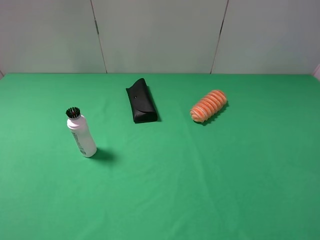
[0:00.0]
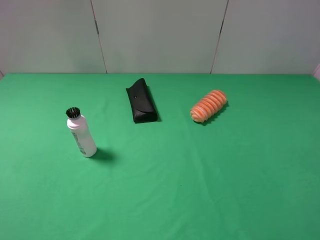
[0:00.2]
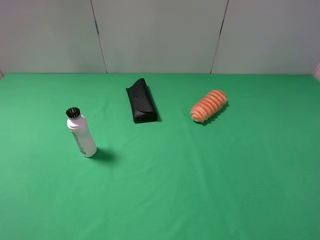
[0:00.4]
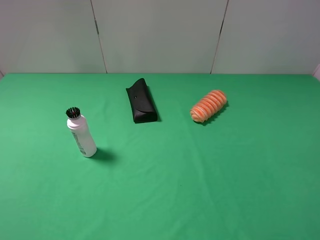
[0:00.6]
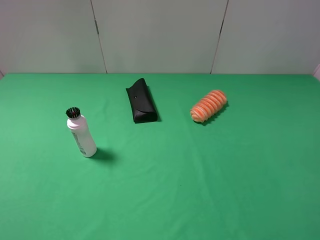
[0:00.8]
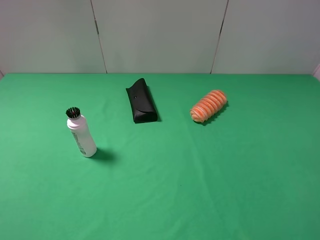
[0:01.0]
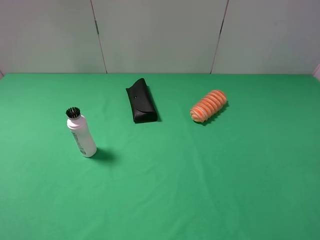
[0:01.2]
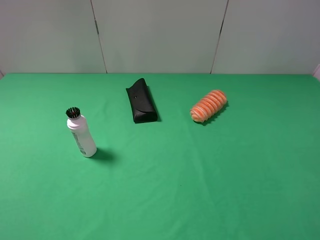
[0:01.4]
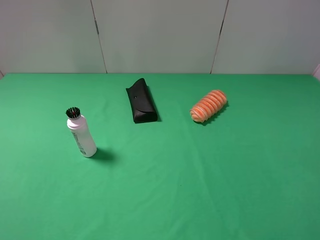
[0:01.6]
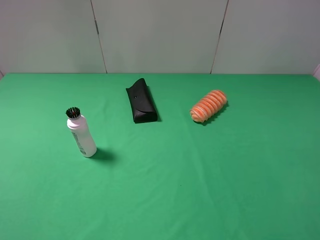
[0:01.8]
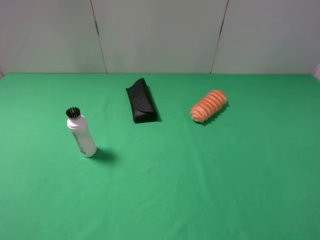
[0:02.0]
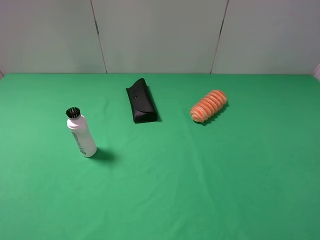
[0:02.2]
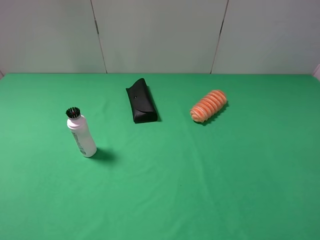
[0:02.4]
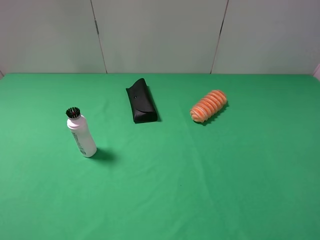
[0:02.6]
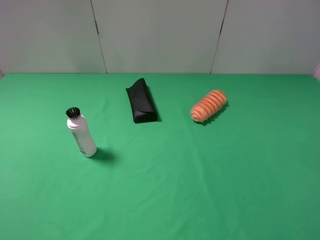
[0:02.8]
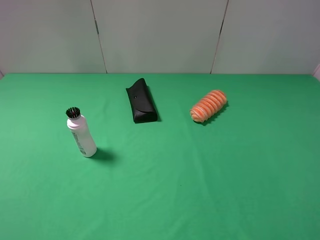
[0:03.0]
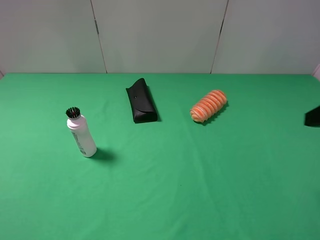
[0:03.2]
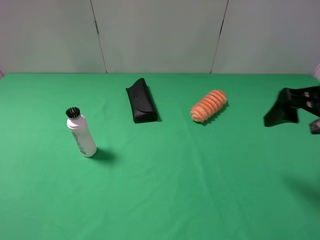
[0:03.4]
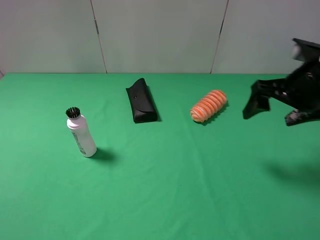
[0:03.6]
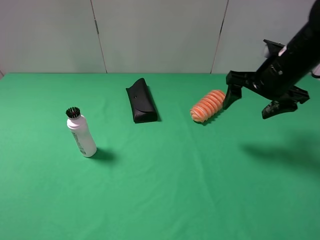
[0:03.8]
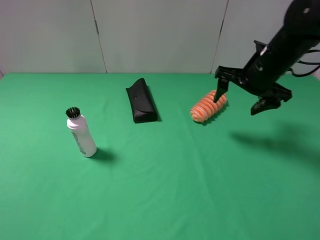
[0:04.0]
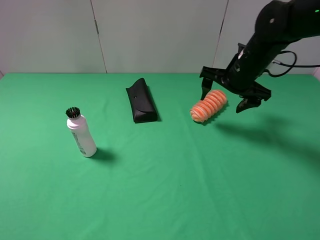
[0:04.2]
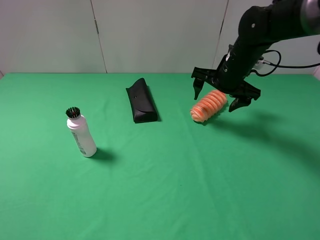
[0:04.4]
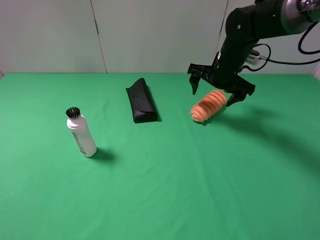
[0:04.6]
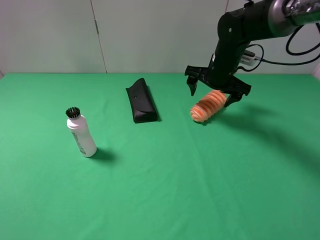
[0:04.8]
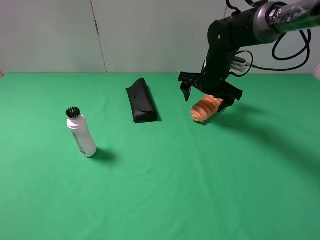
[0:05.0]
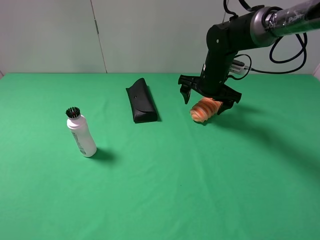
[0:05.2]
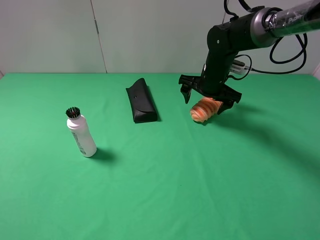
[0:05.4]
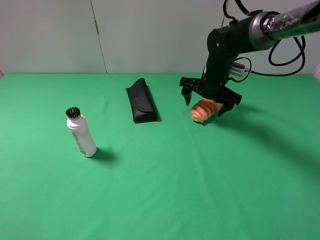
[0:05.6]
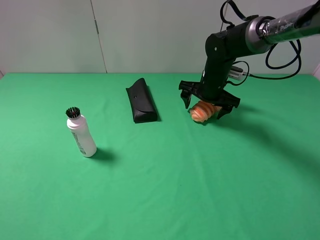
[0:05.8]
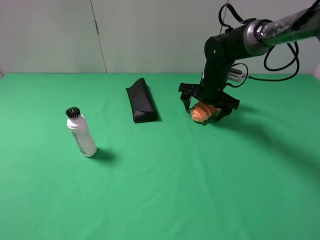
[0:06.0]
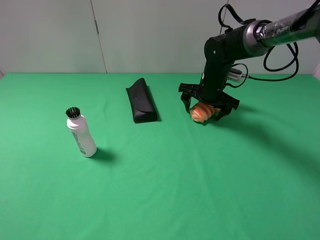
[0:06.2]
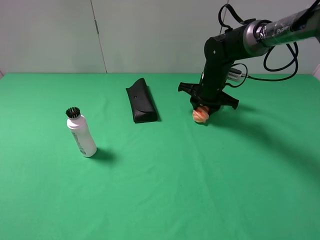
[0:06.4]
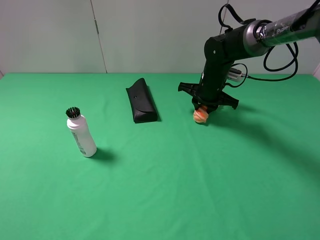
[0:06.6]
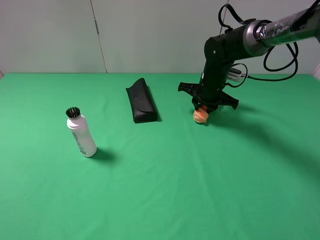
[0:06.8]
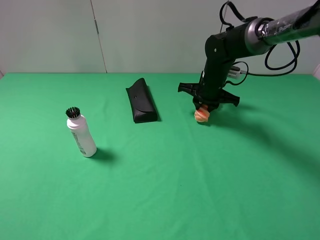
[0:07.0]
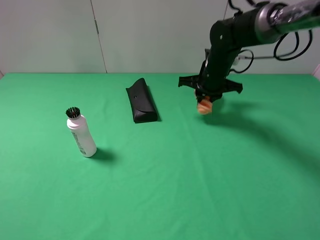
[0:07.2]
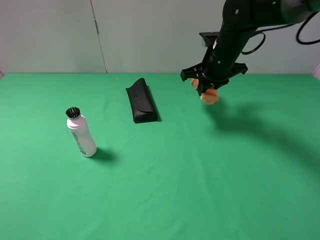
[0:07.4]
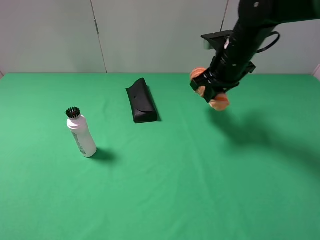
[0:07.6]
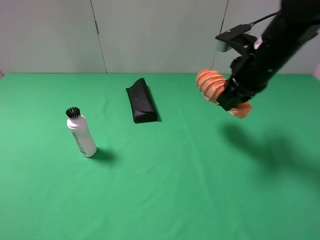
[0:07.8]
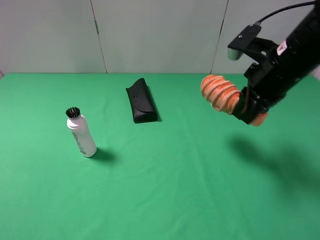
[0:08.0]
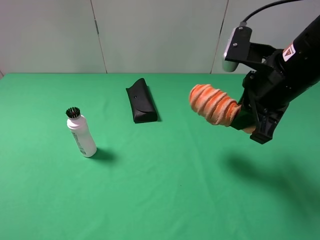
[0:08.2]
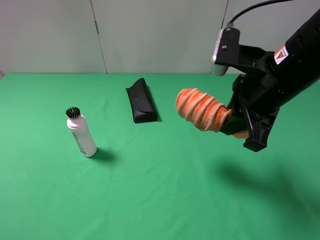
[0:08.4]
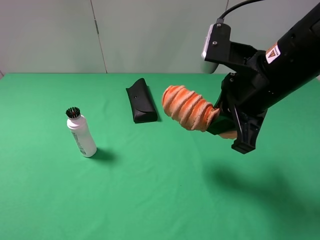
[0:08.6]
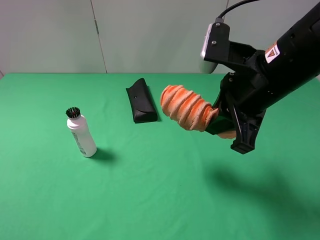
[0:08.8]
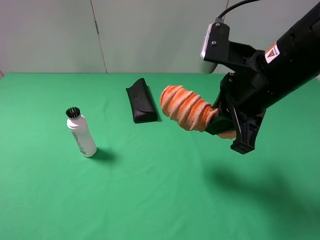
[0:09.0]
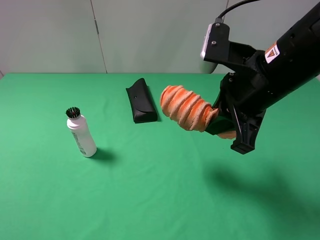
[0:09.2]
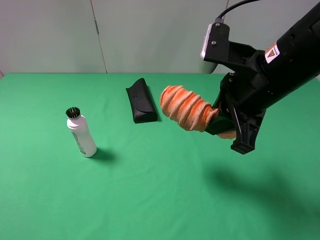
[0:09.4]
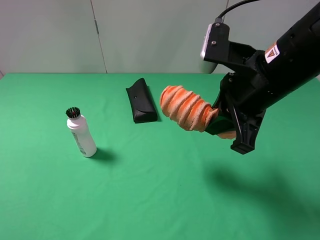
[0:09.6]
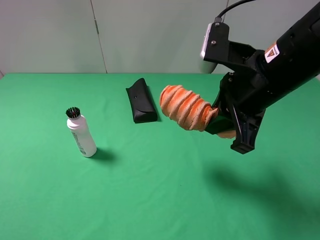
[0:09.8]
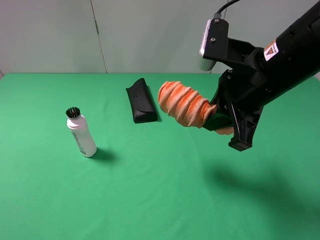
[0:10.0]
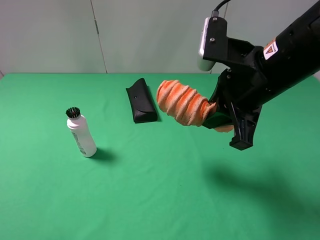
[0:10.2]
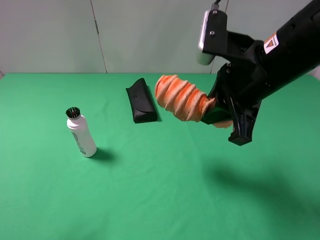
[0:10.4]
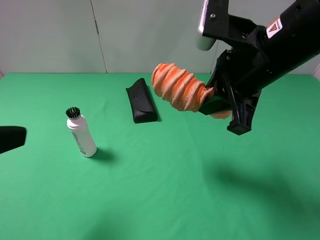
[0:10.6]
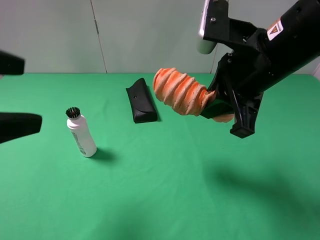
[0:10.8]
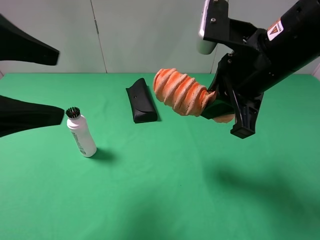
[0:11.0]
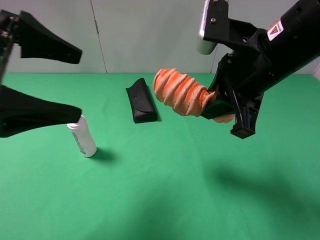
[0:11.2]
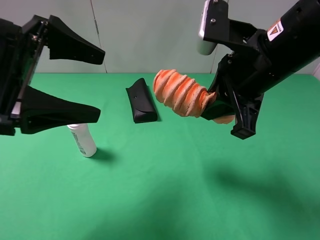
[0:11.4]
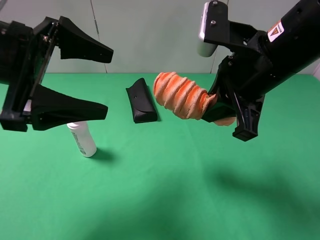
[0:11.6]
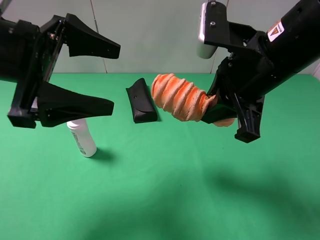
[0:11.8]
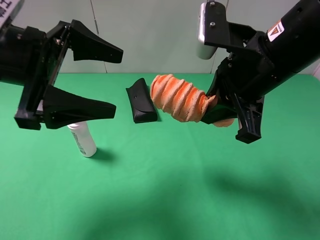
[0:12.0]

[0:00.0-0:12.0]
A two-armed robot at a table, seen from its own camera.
Task of the whole recording: use the right gripper to pick up the item and transfer it from the right gripper to the left gripper.
Step, 0:00.0 to 0:06.4: Use the right to grab the bread on the right side of table.
0:00.0 to 0:01.6: Both grippers stay about where they are.
0:03.0 to 0:04.4: The right gripper moves forward and to the left, about 30 cm.
0:04.4 to 0:06.0: The right gripper moves downward, about 5 cm.
0:06.0 to 0:07.6: The right gripper goes about 15 cm upward and backward, and closes up.
0:07.6 to 0:09.0: The right gripper goes some 15 cm backward.
0:09.0 to 0:10.4: The left gripper goes roughly 5 cm forward.
0:10.4 to 0:12.0: The left gripper moves forward and to the right, some 20 cm.

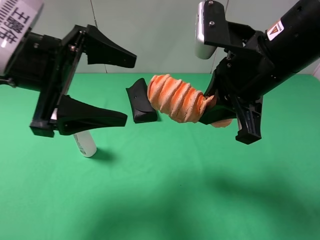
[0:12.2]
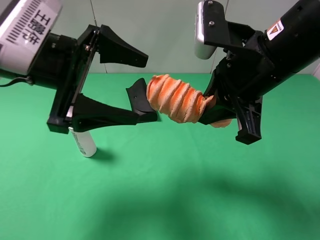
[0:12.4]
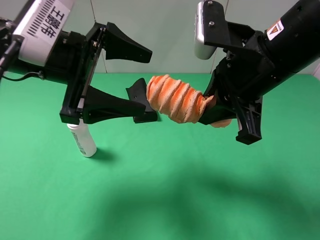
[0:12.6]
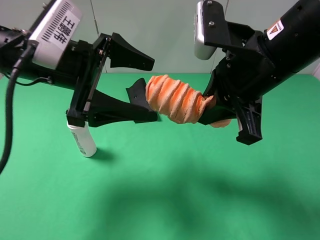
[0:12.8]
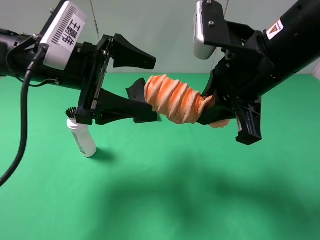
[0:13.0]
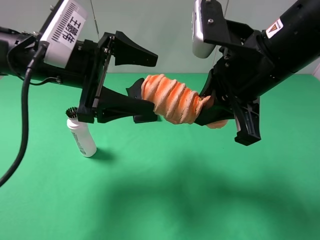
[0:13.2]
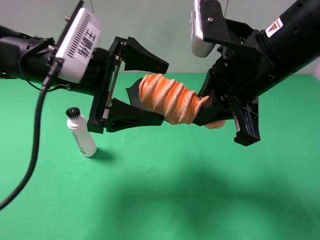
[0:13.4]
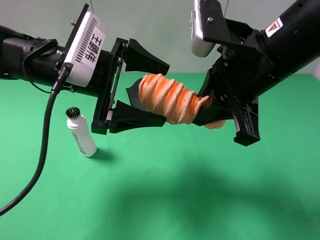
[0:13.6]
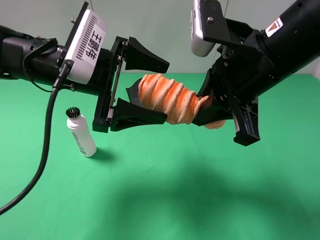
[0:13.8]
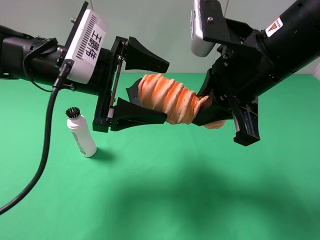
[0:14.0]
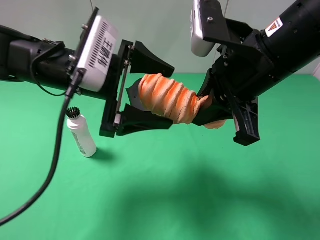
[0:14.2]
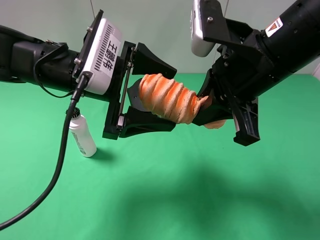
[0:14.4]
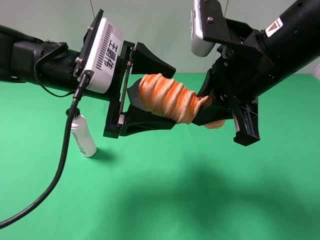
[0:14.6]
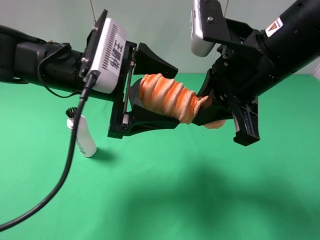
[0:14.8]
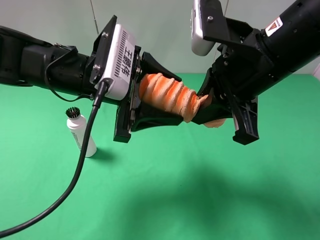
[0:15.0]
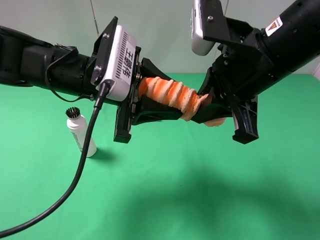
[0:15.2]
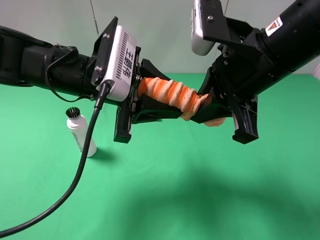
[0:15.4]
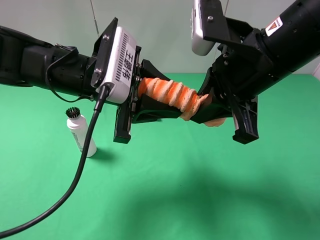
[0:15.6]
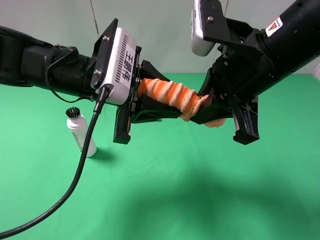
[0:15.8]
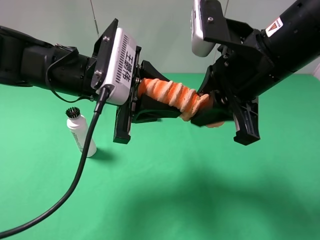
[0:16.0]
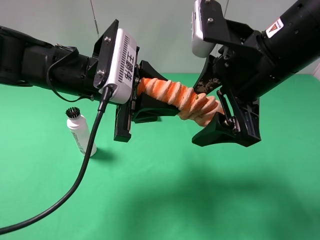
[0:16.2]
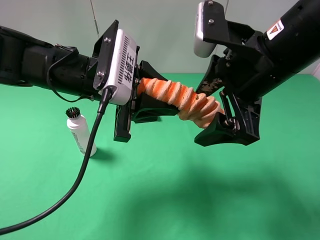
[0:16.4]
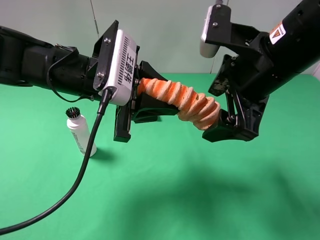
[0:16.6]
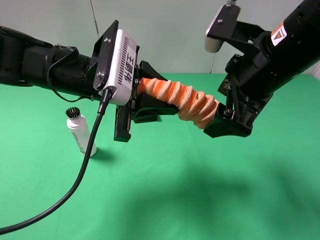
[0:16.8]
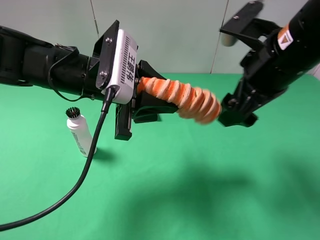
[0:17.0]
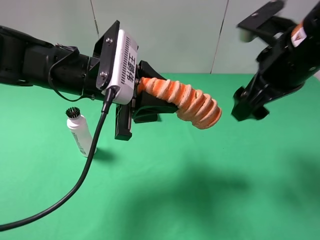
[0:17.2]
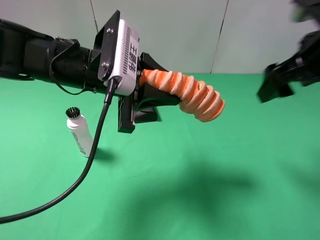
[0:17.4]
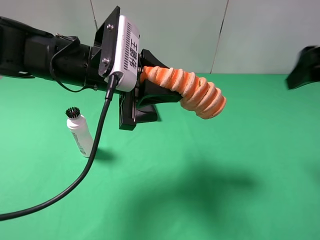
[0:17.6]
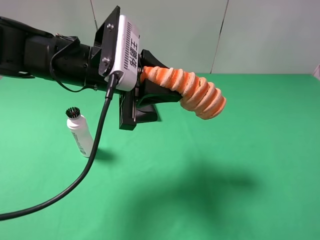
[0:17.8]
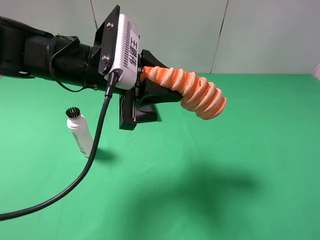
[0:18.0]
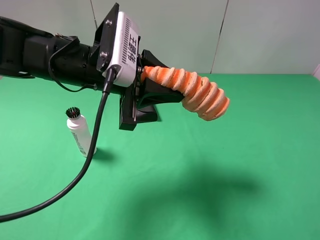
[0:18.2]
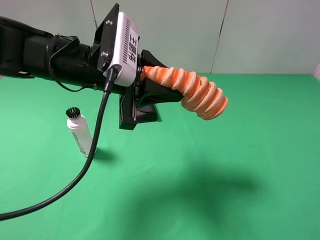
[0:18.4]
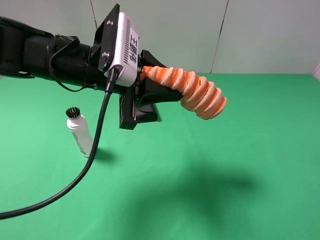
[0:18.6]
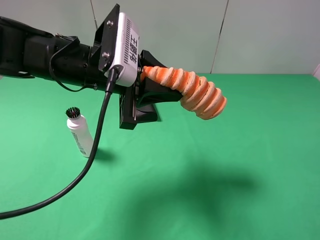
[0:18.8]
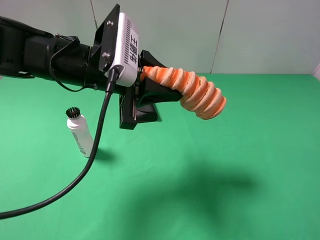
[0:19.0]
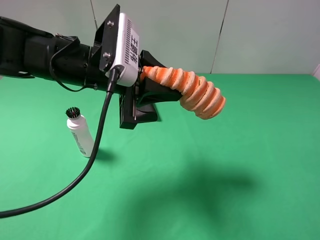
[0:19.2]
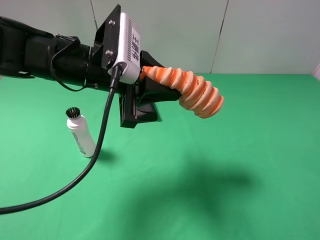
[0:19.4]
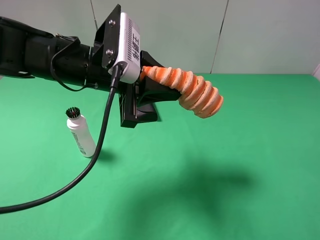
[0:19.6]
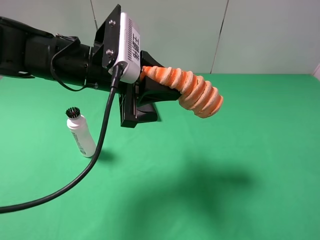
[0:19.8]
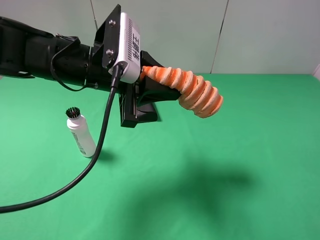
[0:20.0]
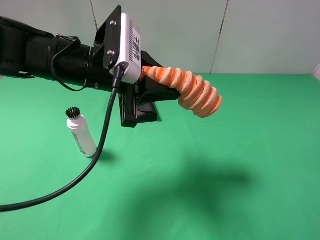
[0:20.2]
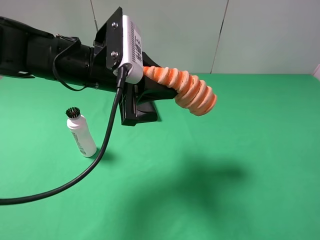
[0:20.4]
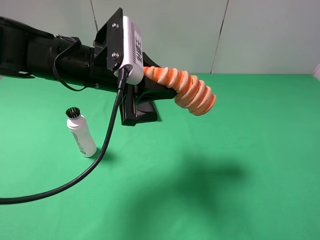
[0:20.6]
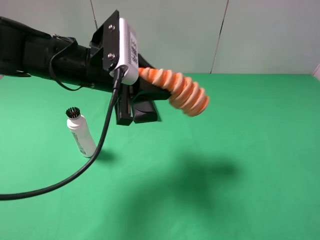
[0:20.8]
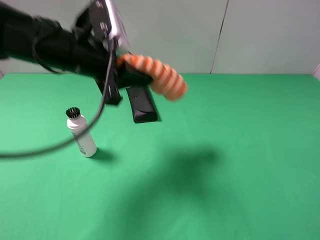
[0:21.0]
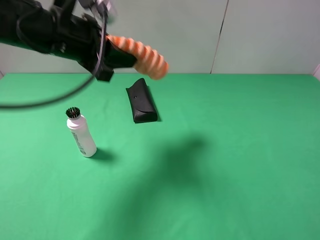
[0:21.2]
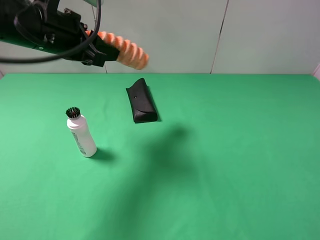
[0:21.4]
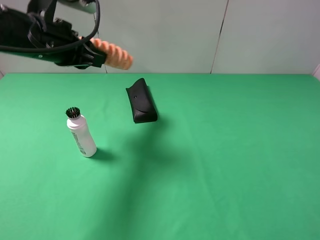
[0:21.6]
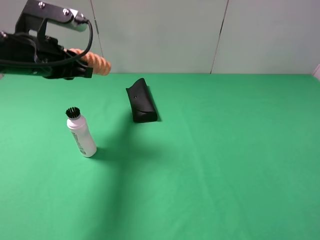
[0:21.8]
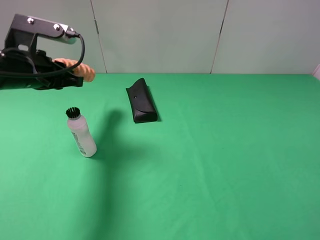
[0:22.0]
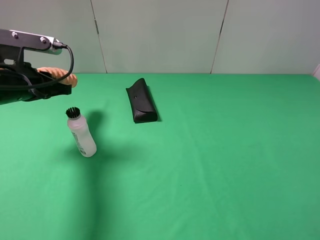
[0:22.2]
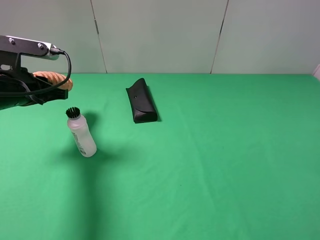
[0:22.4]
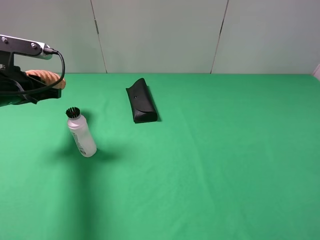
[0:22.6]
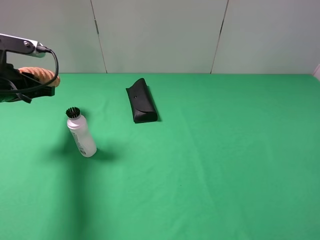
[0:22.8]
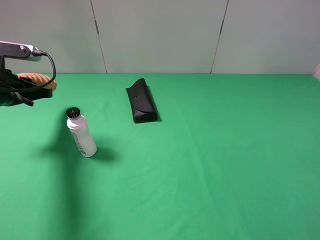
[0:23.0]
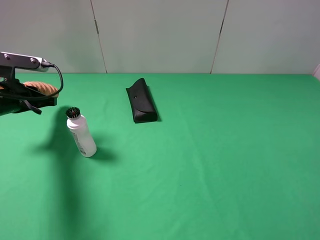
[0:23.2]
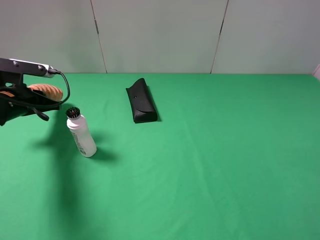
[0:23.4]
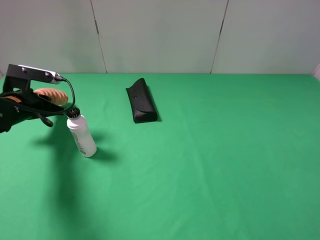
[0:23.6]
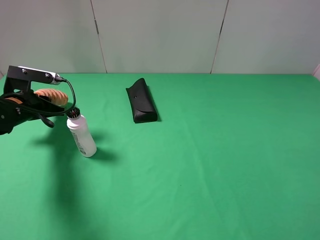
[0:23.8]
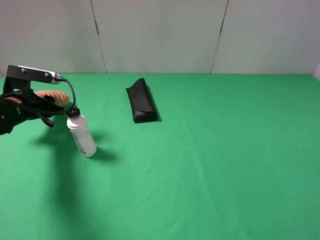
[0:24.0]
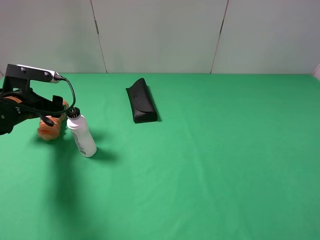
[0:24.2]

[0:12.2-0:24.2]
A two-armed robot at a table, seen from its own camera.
Task of the whole recording: use the right gripper to pick up the item and transfer it from the right gripper to the left gripper.
Step, 0:12.2 to 0:16.2: Pass the bread to the left gripper.
0:12.2 to 0:13.8: The left gripper moves approximately 5 cm.
0:13.8 to 0:15.2: The left gripper closes up.
0:15.2 to 0:16.6: The right gripper opens up.
0:16.6 to 0:18.2: The right gripper is displaced backward and to the right by some 25 cm.
0:18.2 to 0:19.8: The right gripper goes approximately 5 cm downward.
0:19.8 to 0:21.2: The left gripper goes roughly 5 cm to the left.
0:21.2 to 0:22.6: The left gripper moves to the left and downward, about 15 cm.
0:22.6 to 0:24.2: The left gripper shifts roughly 10 cm downward, and opens its fingers.
